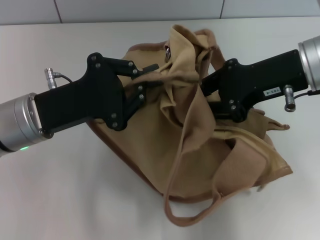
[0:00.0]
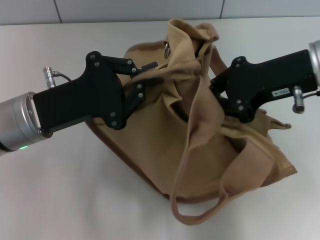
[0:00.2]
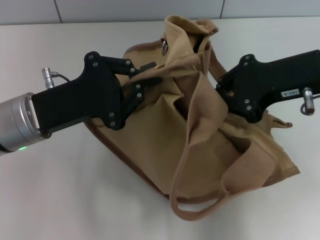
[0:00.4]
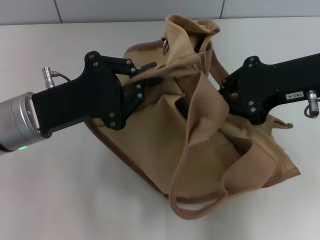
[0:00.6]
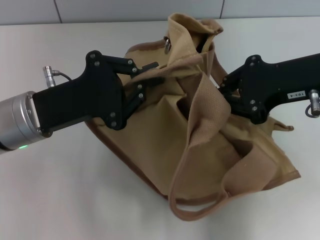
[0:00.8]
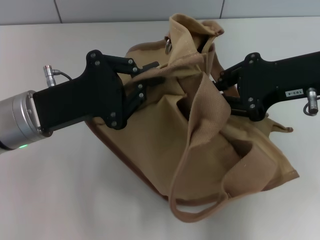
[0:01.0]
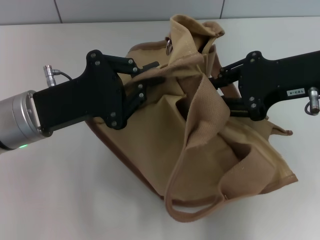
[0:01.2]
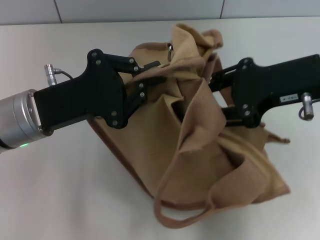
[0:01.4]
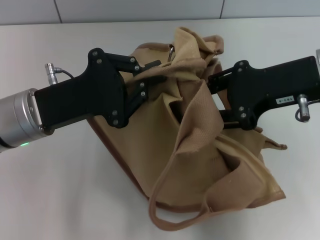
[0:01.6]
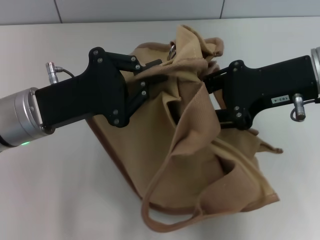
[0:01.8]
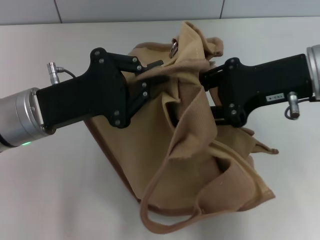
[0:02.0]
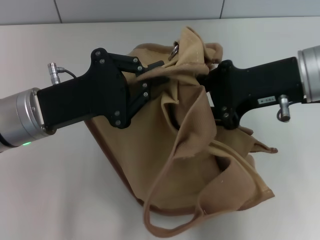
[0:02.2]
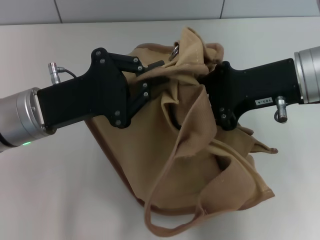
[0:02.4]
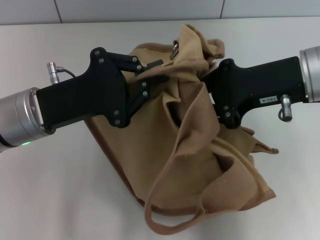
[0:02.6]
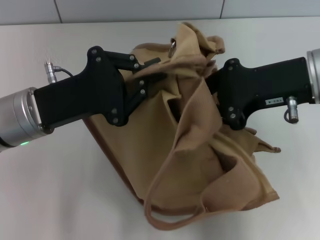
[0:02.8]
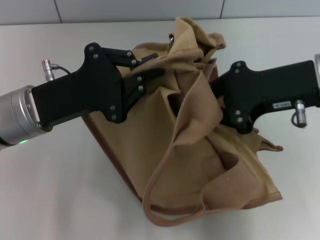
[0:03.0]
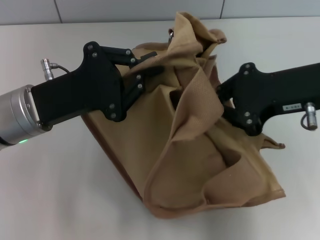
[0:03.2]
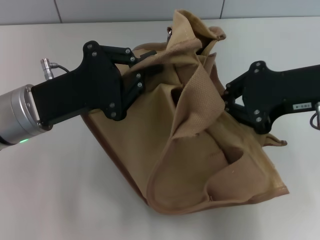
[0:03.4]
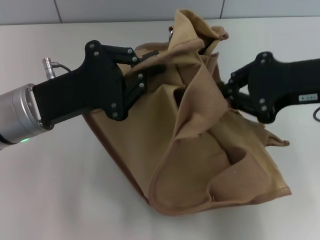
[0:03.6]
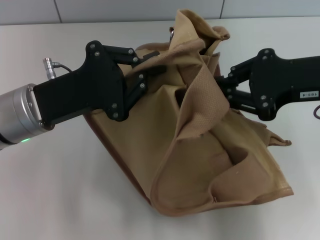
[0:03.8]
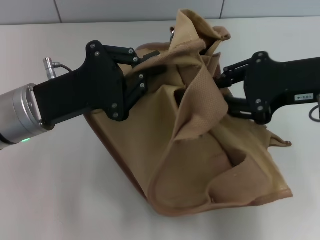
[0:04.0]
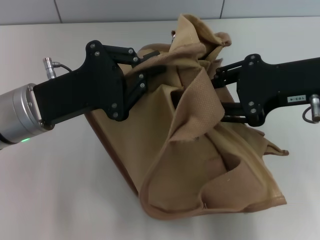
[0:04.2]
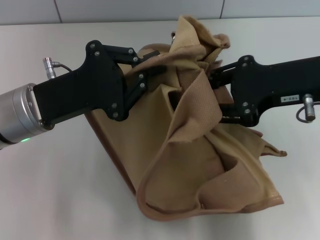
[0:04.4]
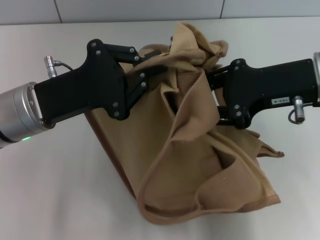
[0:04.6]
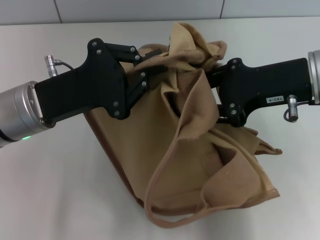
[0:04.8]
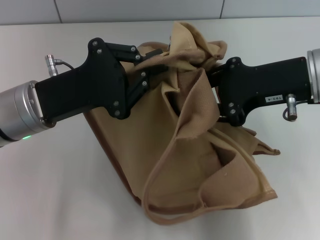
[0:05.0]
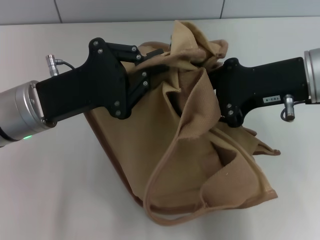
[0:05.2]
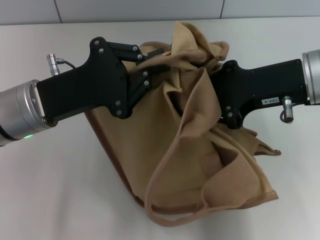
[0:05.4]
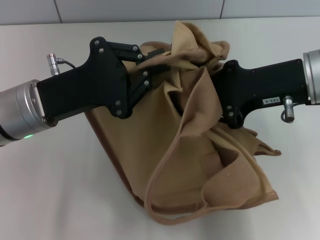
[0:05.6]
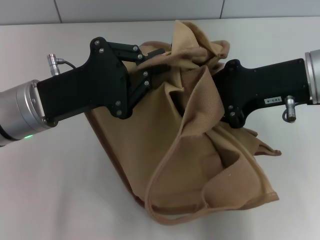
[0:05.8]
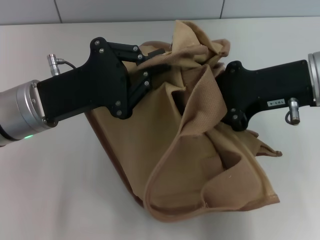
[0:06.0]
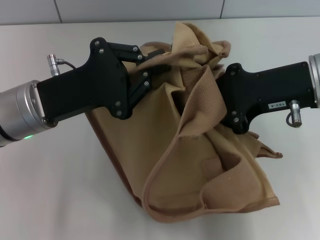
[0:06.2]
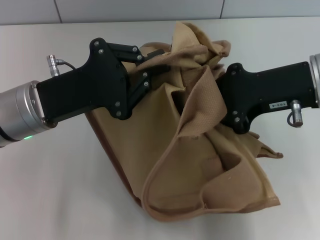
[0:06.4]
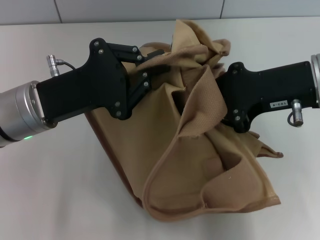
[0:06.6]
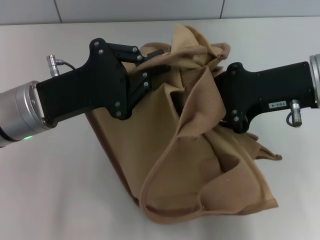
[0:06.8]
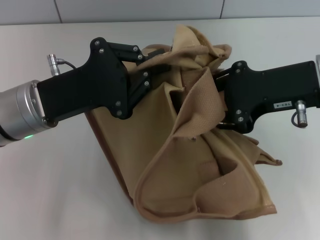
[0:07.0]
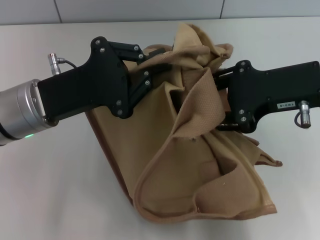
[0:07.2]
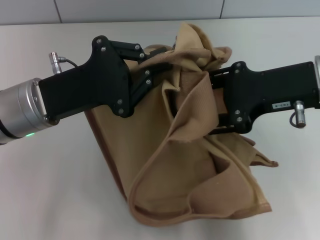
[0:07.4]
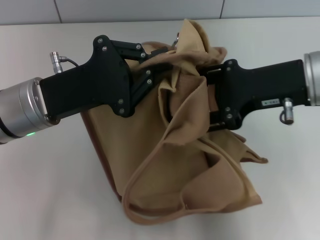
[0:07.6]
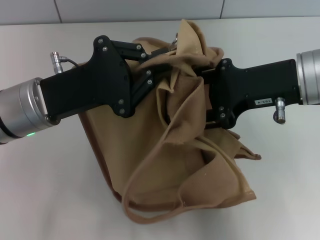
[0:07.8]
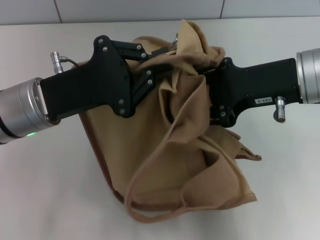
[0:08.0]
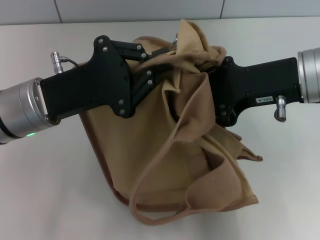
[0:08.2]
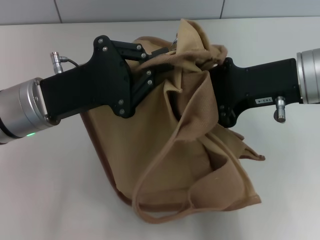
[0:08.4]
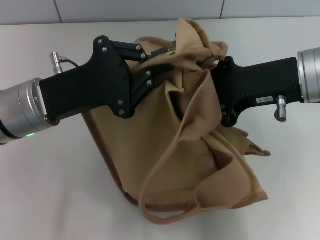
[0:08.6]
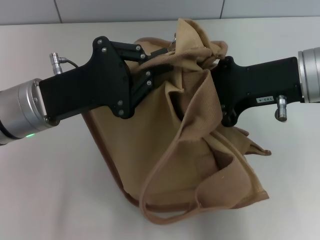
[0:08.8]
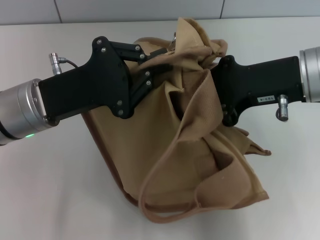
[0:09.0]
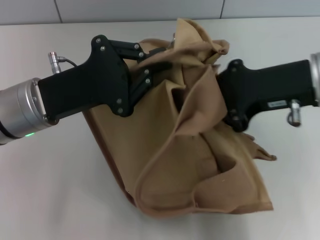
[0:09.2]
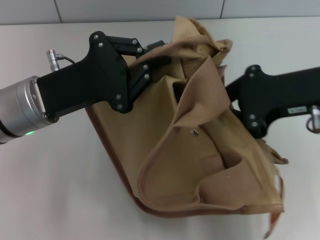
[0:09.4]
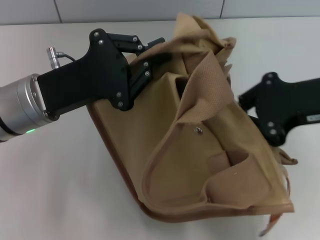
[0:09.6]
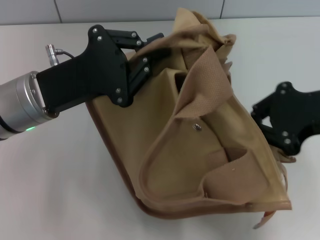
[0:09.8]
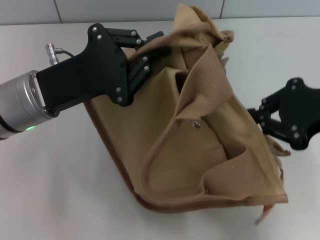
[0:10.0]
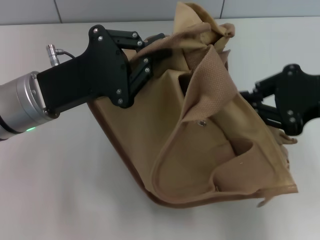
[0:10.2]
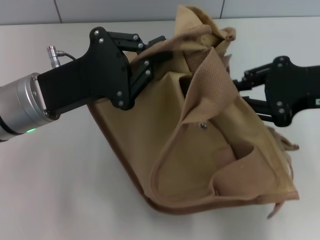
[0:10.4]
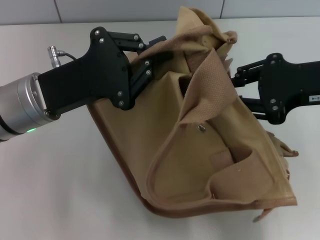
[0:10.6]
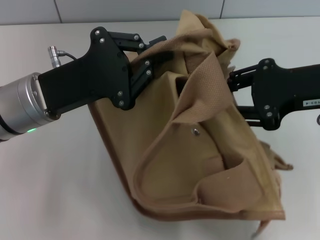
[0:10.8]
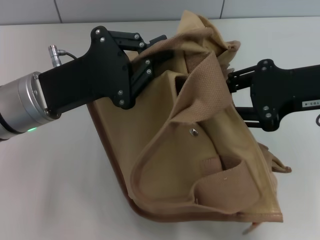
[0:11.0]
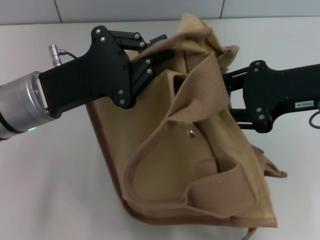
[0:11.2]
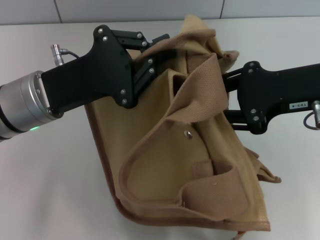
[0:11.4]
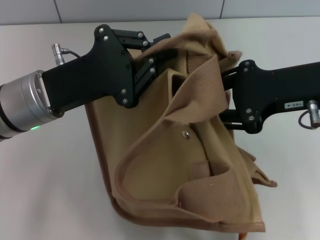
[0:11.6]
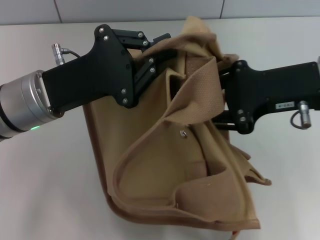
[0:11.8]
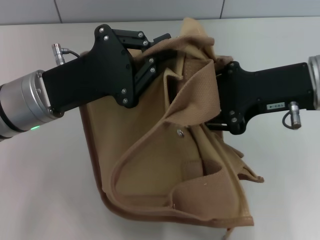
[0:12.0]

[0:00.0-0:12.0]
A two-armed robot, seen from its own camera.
0:00.0 to 0:01.6: The right gripper closes, then reopens.
0:01.6 to 0:03.0: The right gripper closes its fingers.
0:03.0 to 0:04.4: The right gripper opens up.
0:04.4 to 0:06.0: The right gripper closes up.
0:06.0 to 0:07.6: The right gripper opens up.
0:07.6 to 0:09.0: The right gripper closes its fingers.
0:09.0 to 0:10.4: The right gripper travels to the right by roughly 5 cm.
0:10.4 to 0:12.0: The right gripper is displaced to the left by approximately 5 cm, and opens.

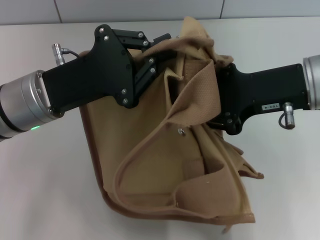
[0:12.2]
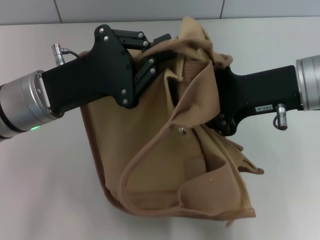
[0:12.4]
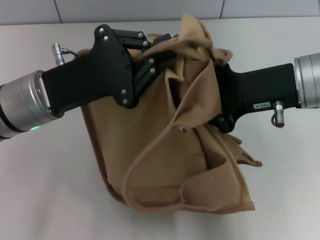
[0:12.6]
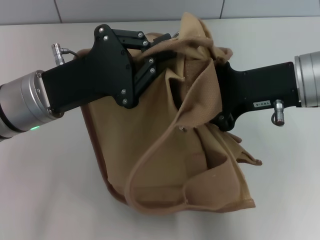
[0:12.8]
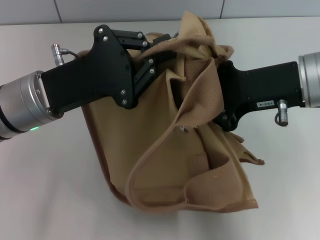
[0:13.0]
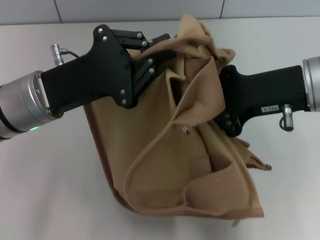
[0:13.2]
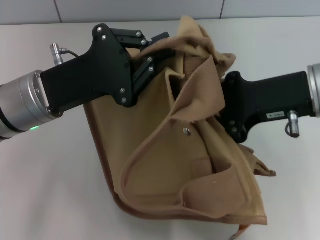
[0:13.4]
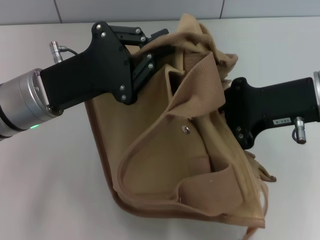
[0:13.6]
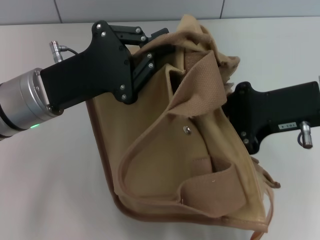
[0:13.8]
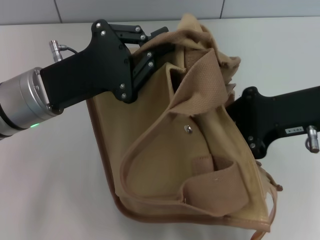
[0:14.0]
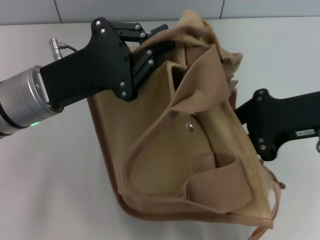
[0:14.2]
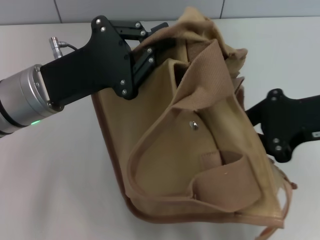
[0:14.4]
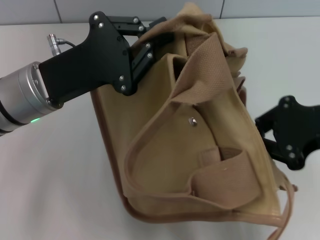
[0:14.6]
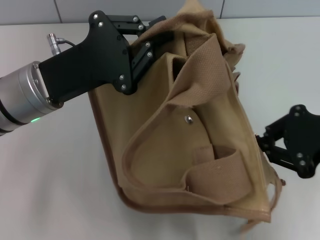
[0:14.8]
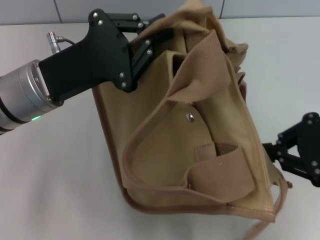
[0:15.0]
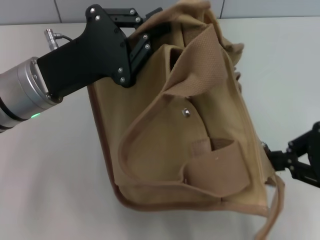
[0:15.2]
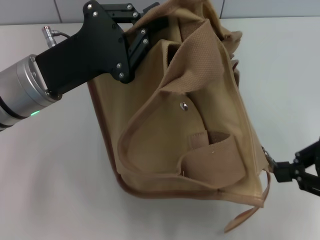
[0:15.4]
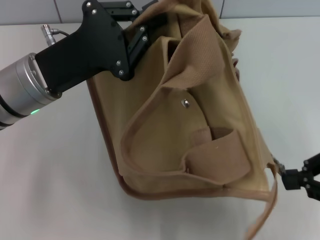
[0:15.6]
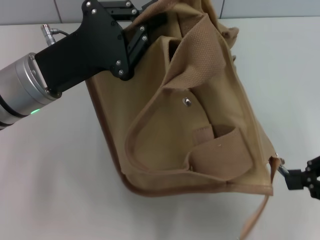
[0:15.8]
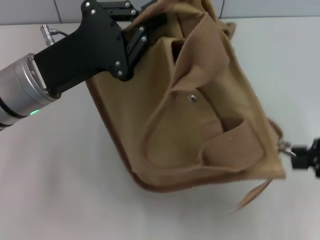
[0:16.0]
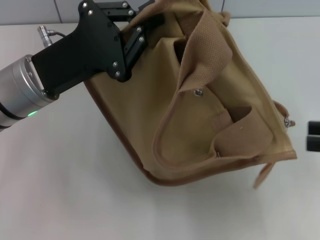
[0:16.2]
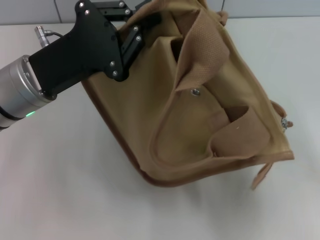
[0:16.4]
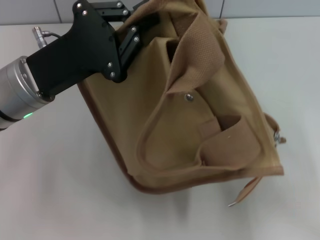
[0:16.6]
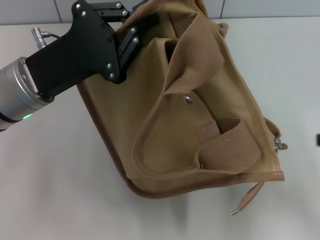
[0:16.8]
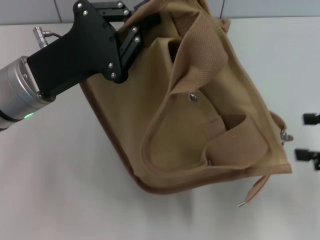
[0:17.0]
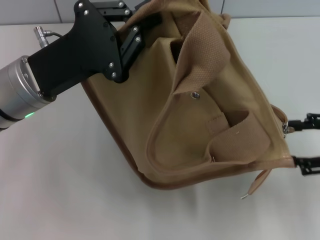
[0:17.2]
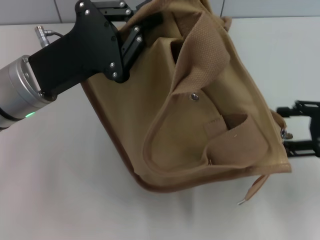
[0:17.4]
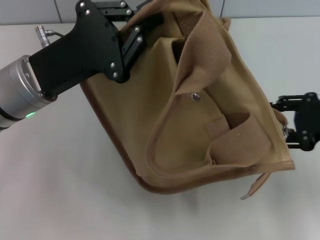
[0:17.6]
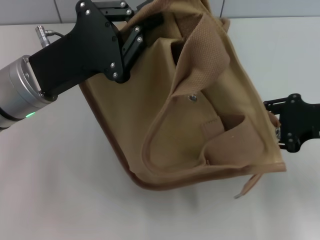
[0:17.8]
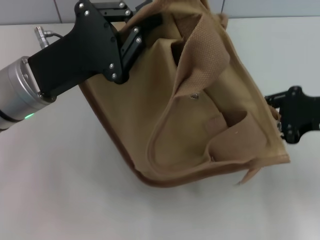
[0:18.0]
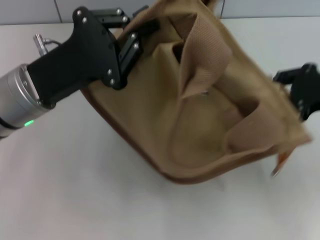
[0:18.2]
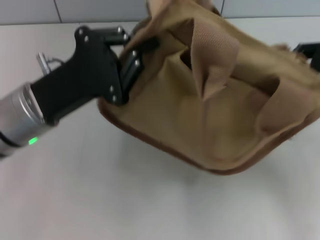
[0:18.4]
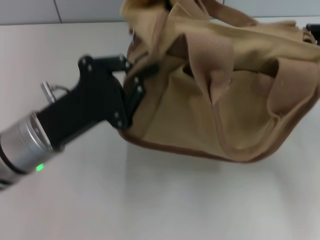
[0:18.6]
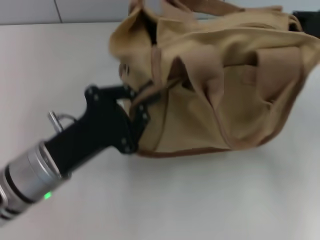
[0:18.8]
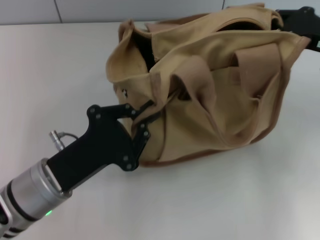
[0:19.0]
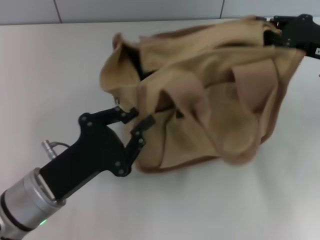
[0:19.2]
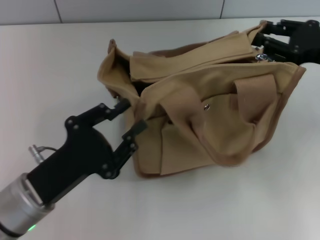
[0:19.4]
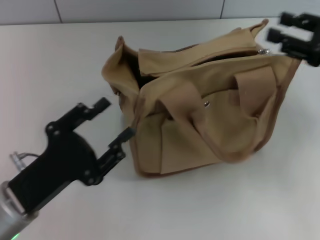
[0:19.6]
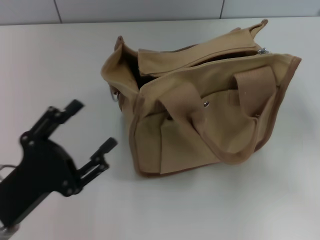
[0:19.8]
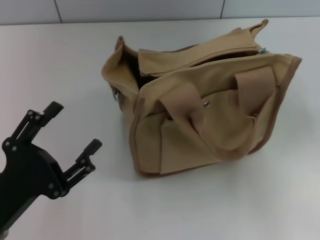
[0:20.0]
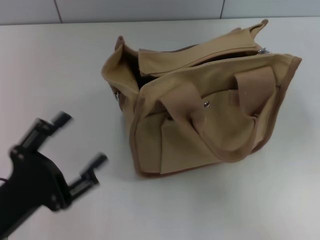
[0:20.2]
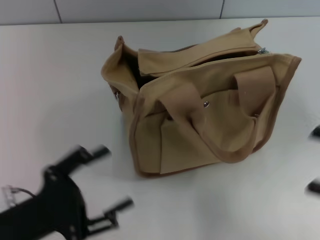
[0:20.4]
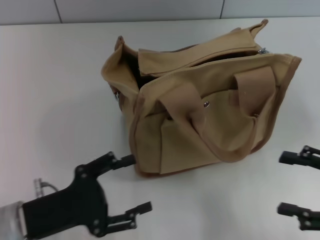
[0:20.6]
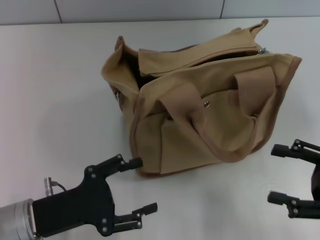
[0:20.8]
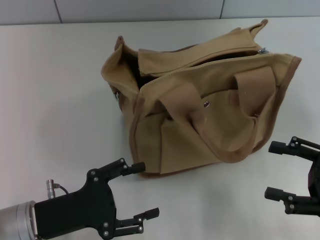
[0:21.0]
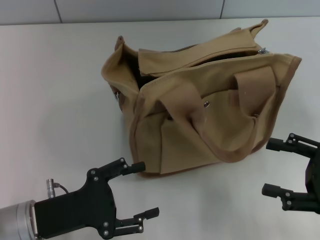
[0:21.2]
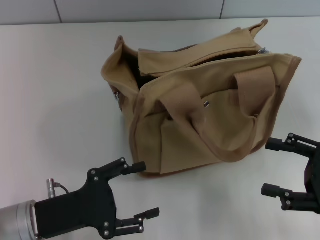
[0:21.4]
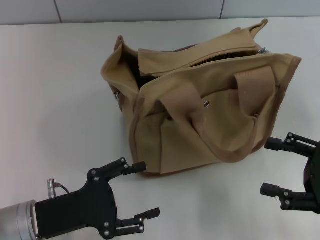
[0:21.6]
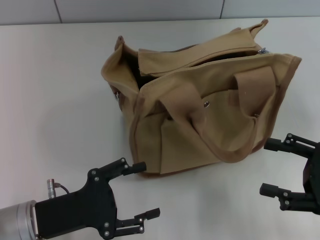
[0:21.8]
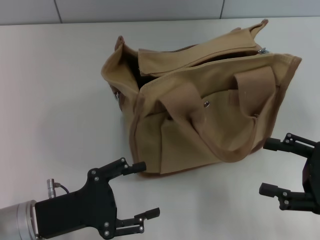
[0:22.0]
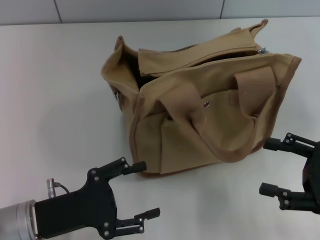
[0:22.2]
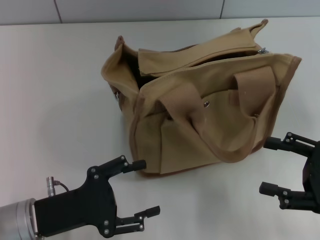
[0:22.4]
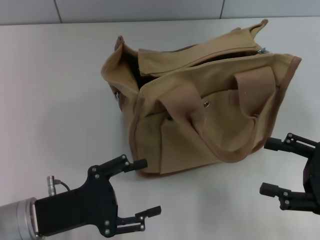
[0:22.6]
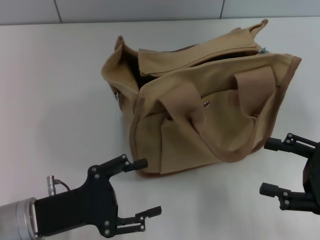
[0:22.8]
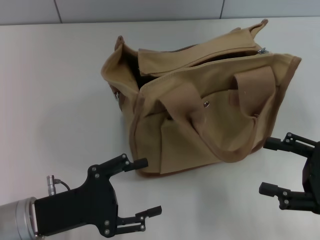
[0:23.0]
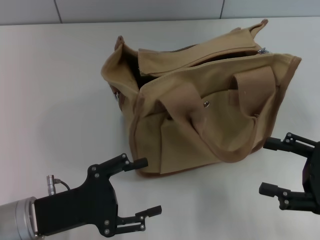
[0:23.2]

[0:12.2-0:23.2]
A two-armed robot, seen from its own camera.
Step, 0:12.2 to 0:16.4: Pull open the zipper with your right hand.
Step, 0:16.8 to 0:19.6: Grab the bag with your left hand.
0:12.2 to 0:13.8: The right gripper closes its fingers.
0:13.8 to 0:15.4: The right gripper is displaced to the right and backward by roughly 10 cm.
0:15.4 to 0:17.0: The right gripper goes about 5 cm to the right, and opens its fingers.
0:17.0 to 0:18.4: The right gripper is displaced forward by roughly 5 cm, and closes its fingers.
0:18.4 to 0:20.0: The right gripper goes some 5 cm backward, and opens; the left gripper goes some 15 cm backward, downward and to the left, and opens its fingers.
0:20.0 to 0:21.6: The right gripper is displaced downward and to the left by roughly 10 cm.
0:21.6 to 0:23.2: Both grippers stay put.
